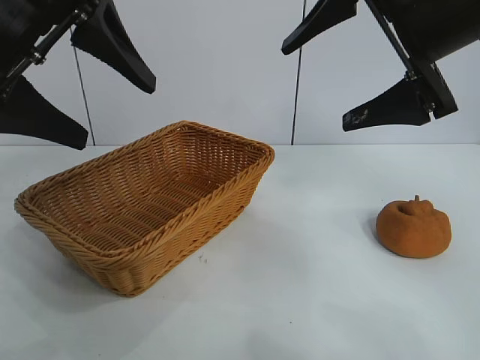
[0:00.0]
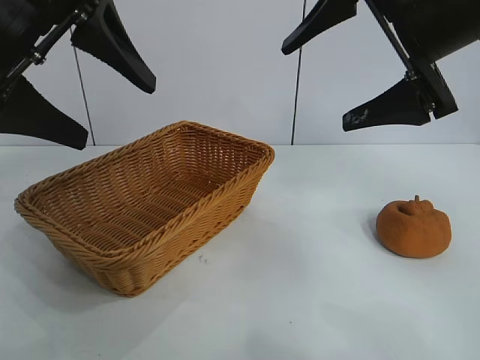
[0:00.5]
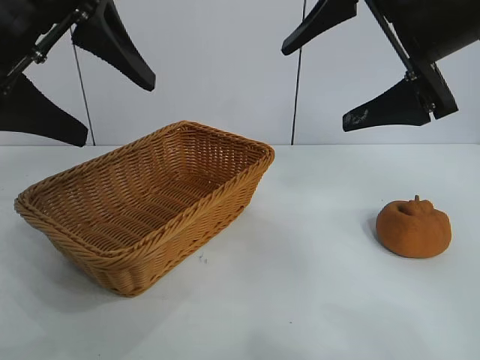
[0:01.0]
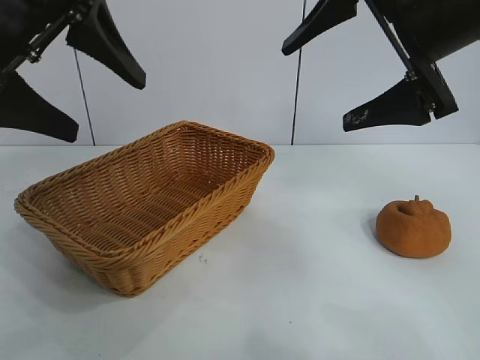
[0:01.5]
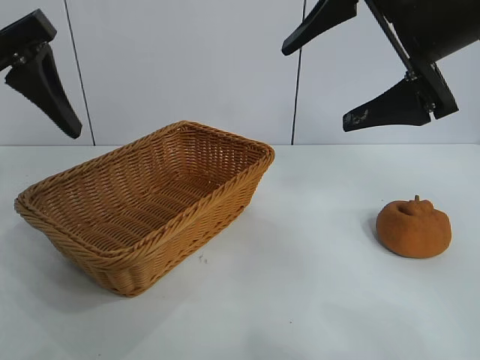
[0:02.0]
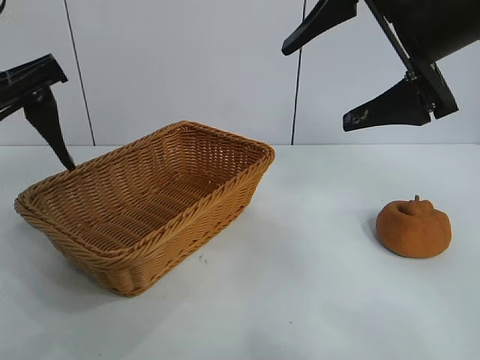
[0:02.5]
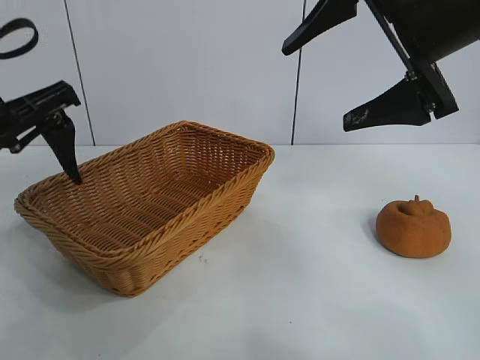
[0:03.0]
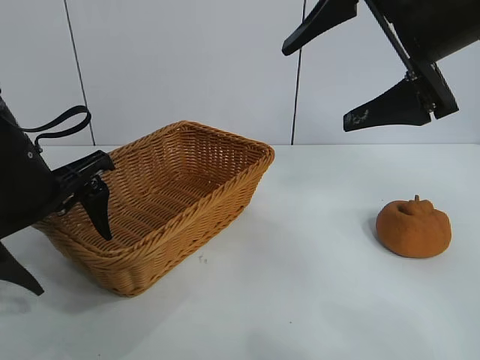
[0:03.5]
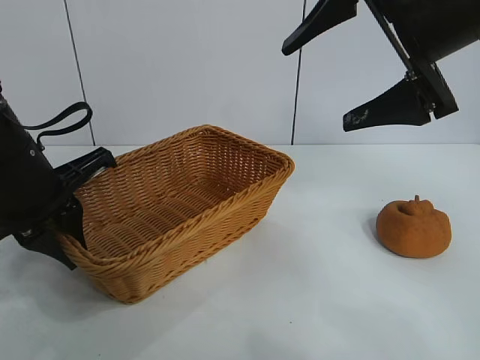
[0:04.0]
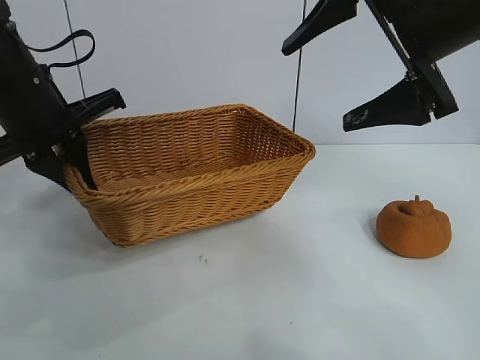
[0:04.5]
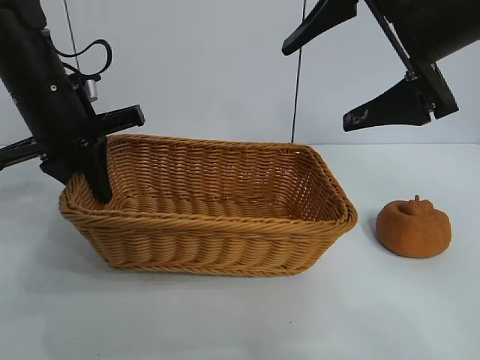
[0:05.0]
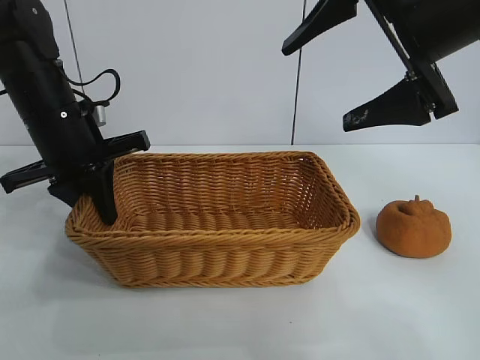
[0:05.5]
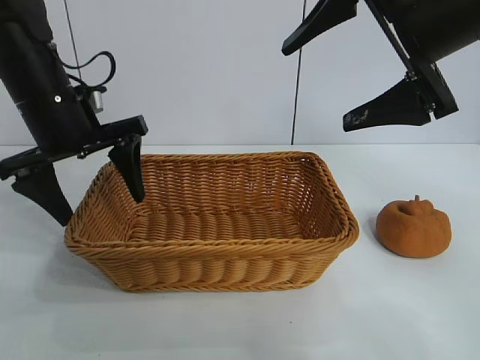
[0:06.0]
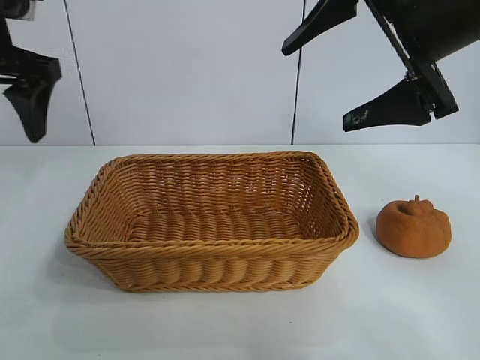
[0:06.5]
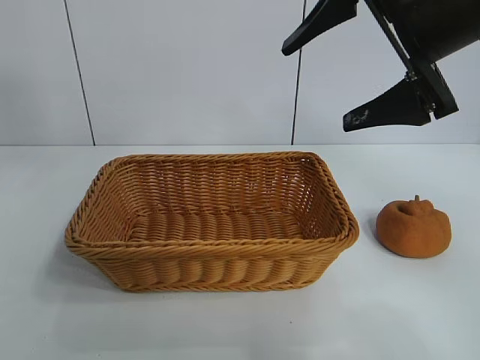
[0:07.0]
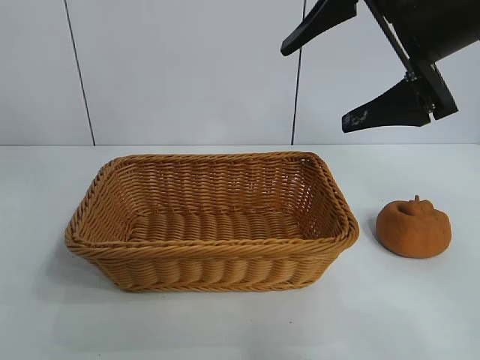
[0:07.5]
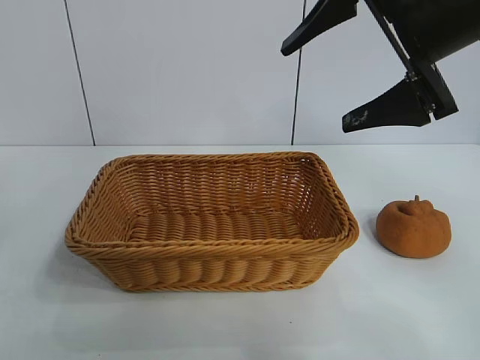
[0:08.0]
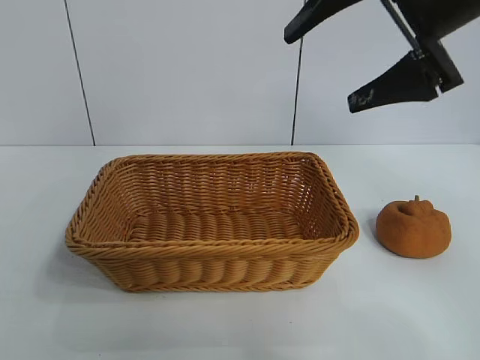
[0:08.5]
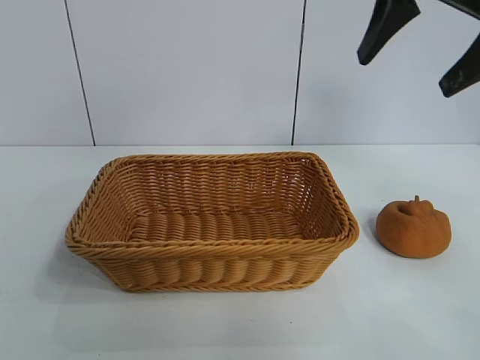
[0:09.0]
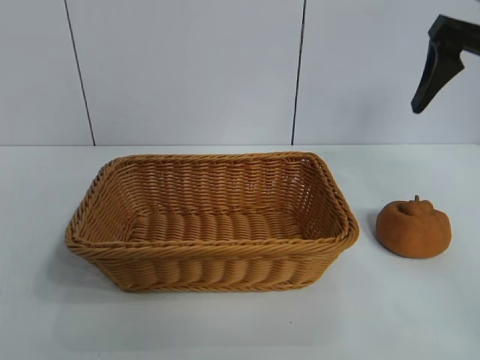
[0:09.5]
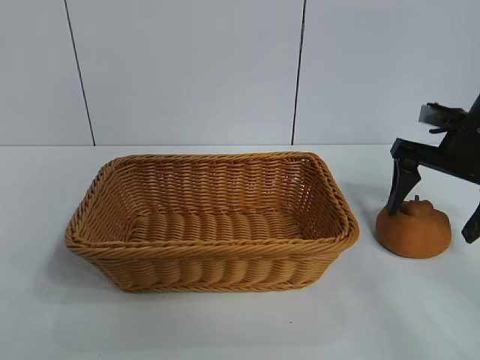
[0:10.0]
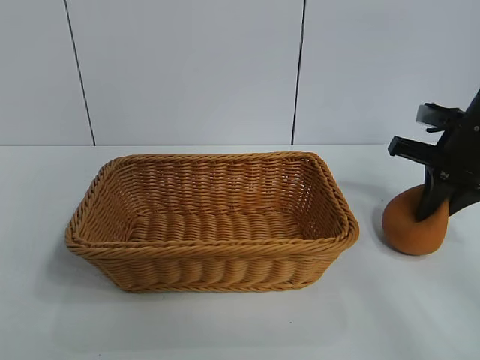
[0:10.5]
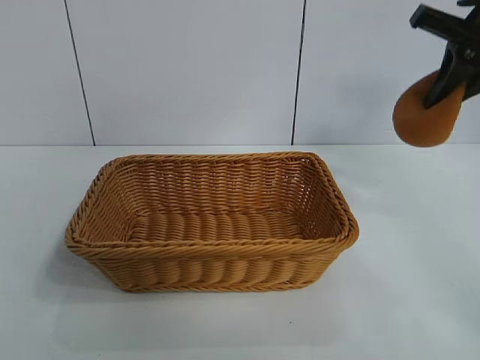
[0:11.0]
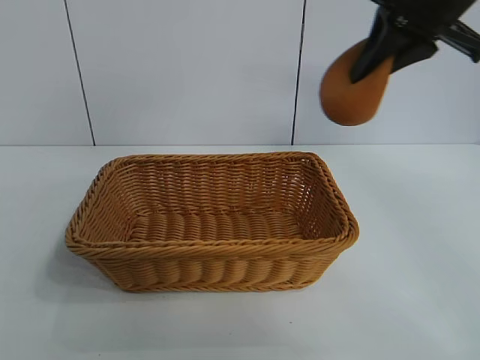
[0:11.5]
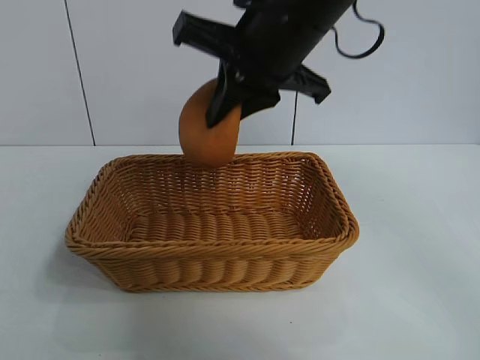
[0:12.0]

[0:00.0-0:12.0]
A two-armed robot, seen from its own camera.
Task of the whole recording: pick up the orange and put it into the basket.
Step, 0:01.0 to 0:03.5: Grasp the basket with left gripper.
Step, 0:04.0 to 0:05.5: Place the basket in the center of view with left gripper.
Step, 0:06.0 to 0:10.0: Grasp the orange with right gripper.

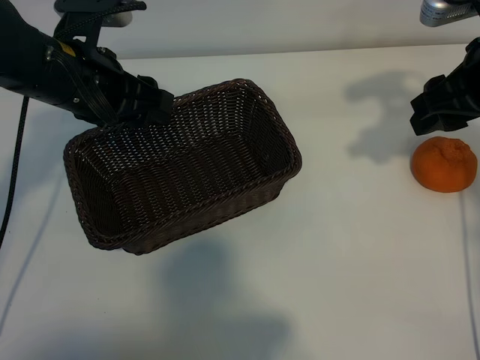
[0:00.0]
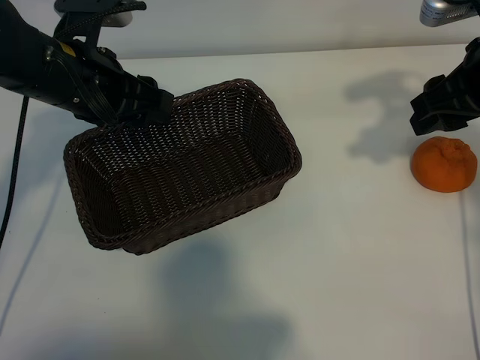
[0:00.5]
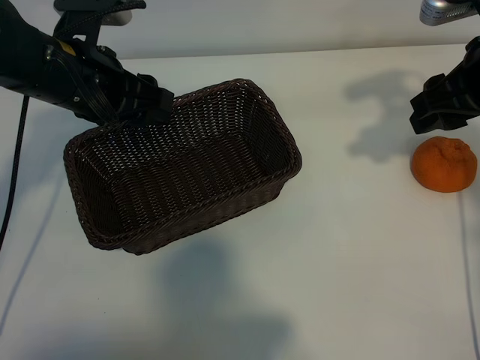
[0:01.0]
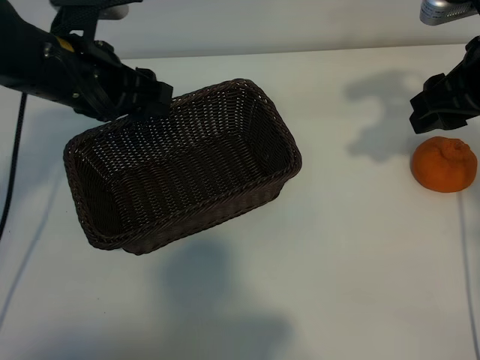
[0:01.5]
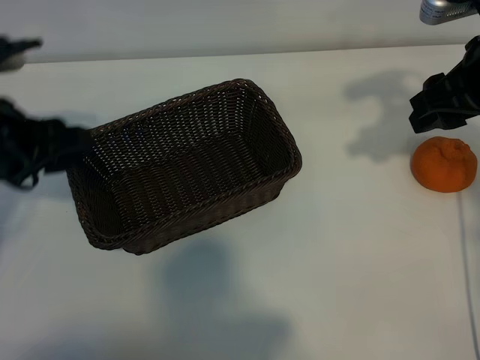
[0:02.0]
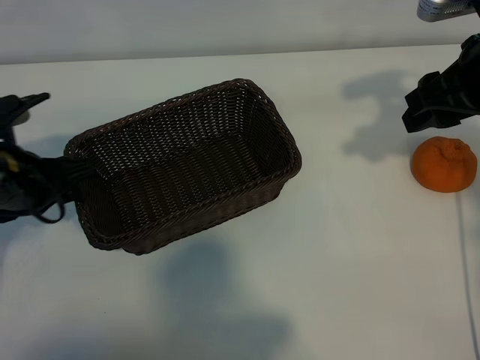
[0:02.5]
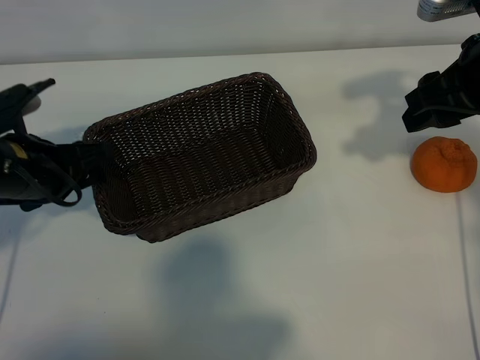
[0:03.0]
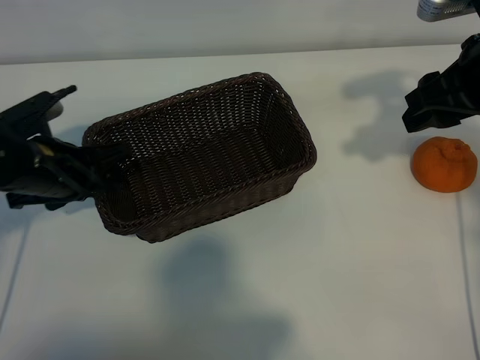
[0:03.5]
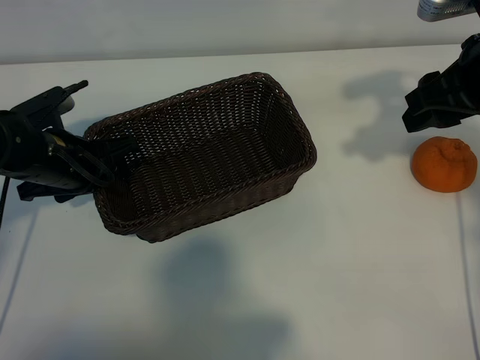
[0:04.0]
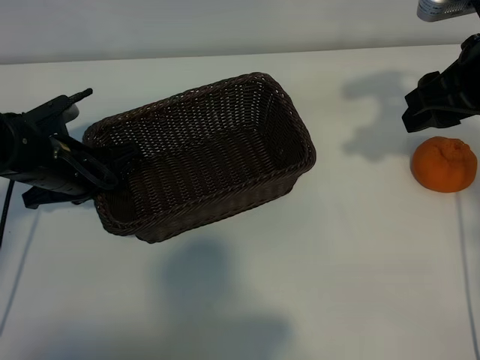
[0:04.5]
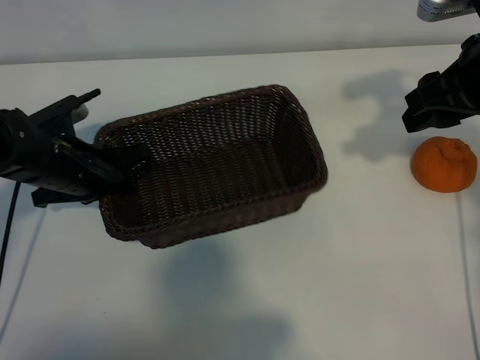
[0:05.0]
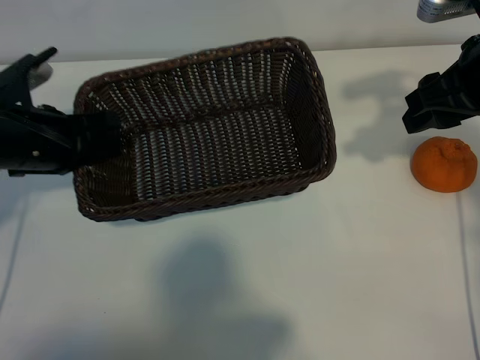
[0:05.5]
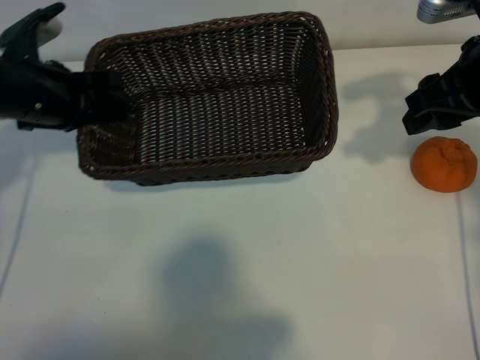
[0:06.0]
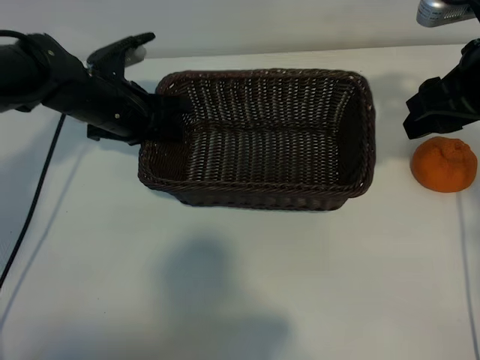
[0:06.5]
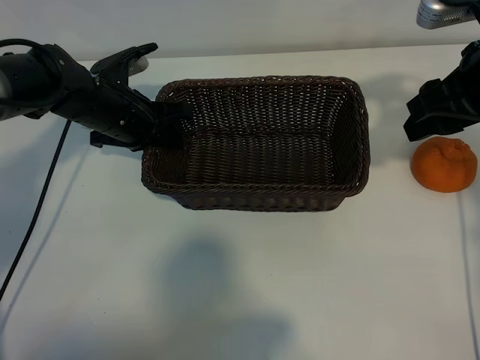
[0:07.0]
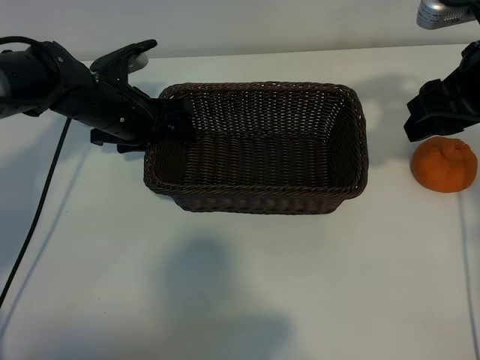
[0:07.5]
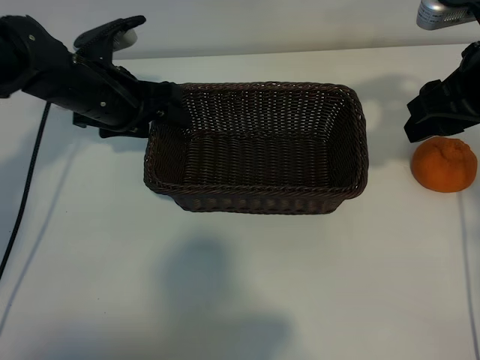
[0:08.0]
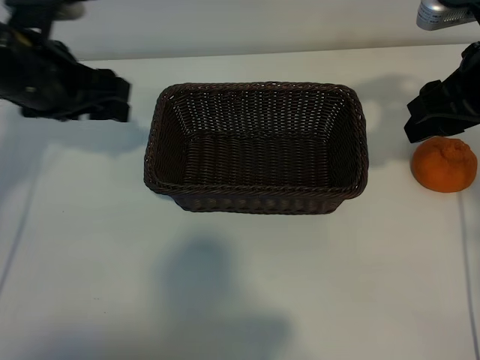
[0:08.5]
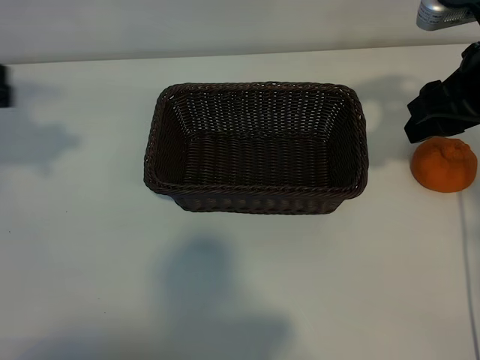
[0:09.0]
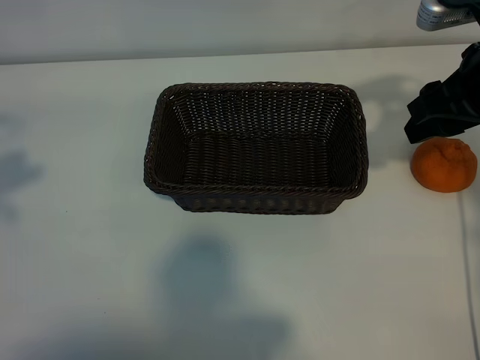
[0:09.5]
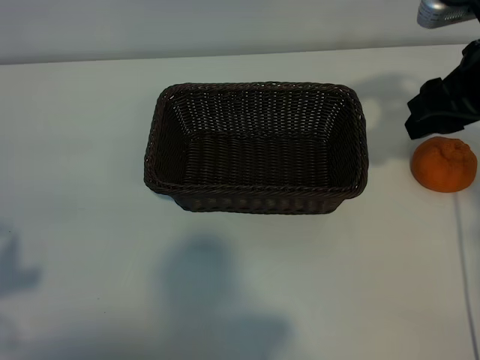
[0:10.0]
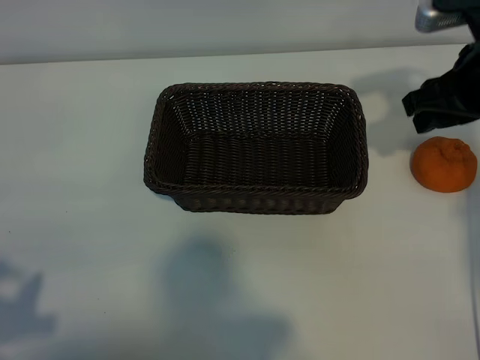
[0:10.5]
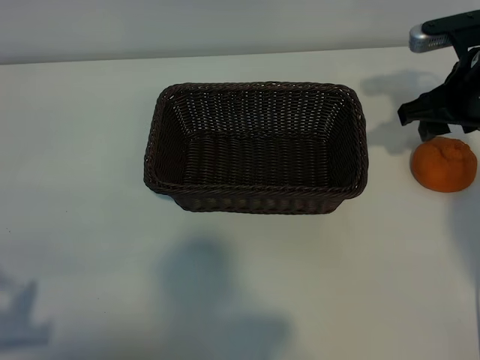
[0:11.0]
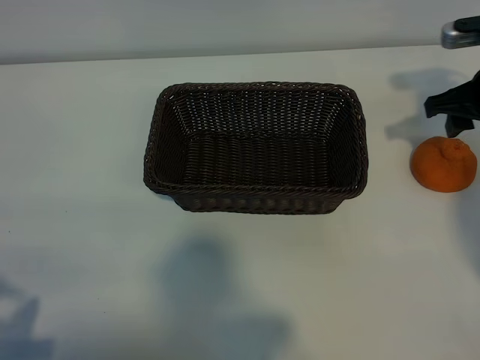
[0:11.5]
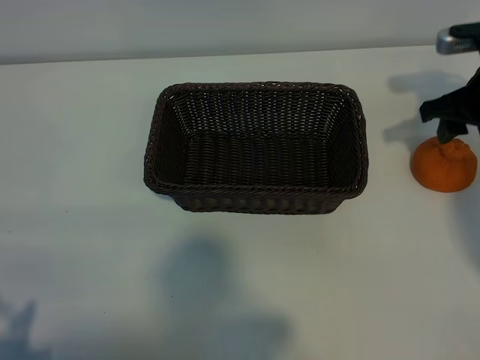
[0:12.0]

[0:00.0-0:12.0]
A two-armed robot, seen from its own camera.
Task of the whole recording: pick up the orange and put it into the basket.
Step, 0:01.0 to 0:04.5: Grasp the basket with left gripper.
Step, 0:05.0 to 0:07.0: Place the basket in the center of view with left gripper.

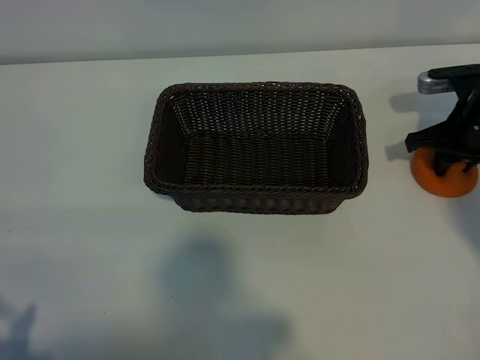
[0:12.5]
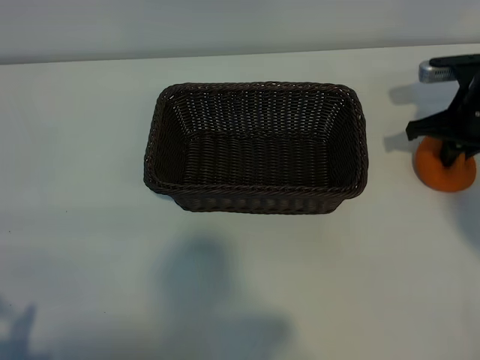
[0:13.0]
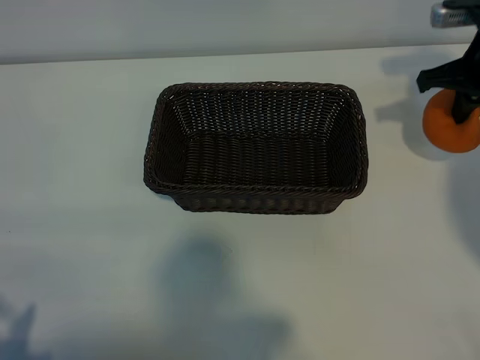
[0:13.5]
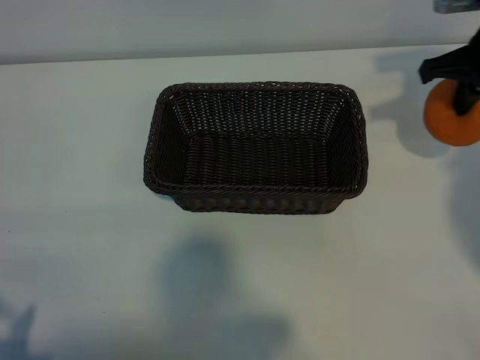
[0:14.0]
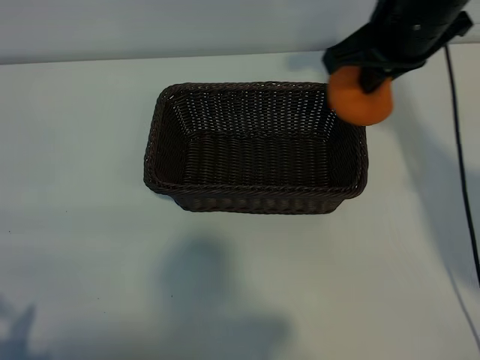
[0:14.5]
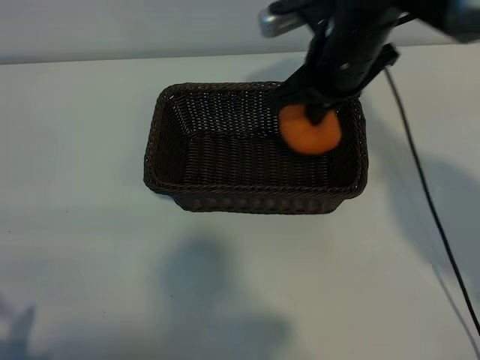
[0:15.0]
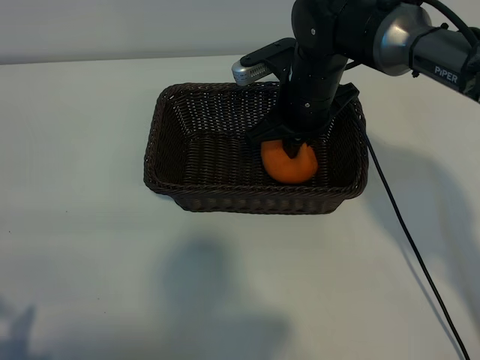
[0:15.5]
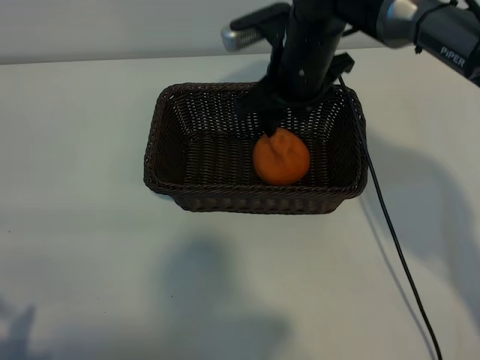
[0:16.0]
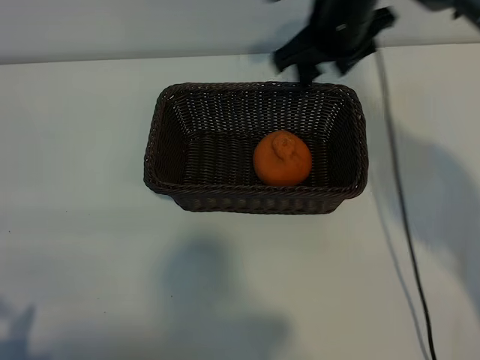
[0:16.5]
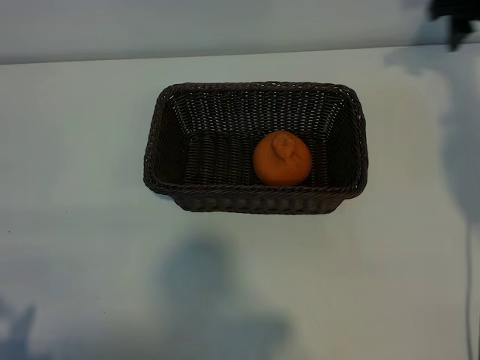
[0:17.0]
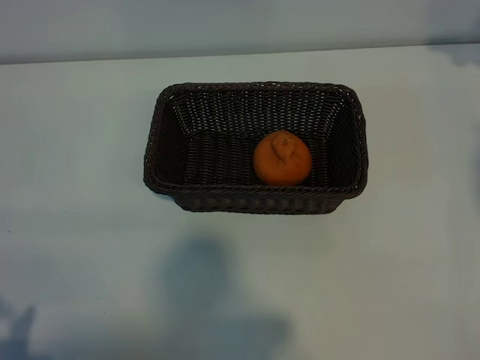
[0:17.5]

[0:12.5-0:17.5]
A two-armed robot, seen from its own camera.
Task of the whole recording: pick up the orange and put it into the basket.
Step, 0:13.0 to 0:16.0: Place the orange in the basket with right gripper.
